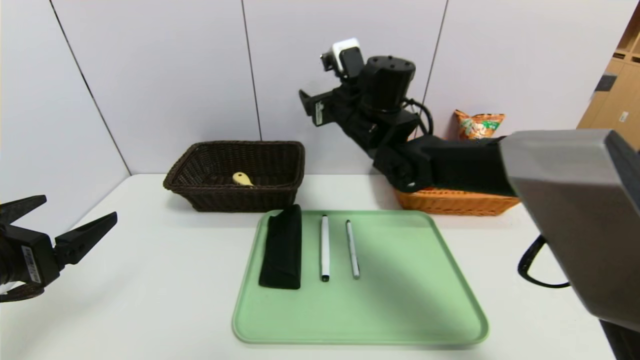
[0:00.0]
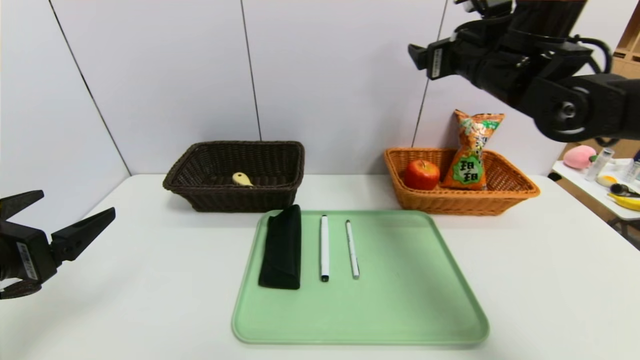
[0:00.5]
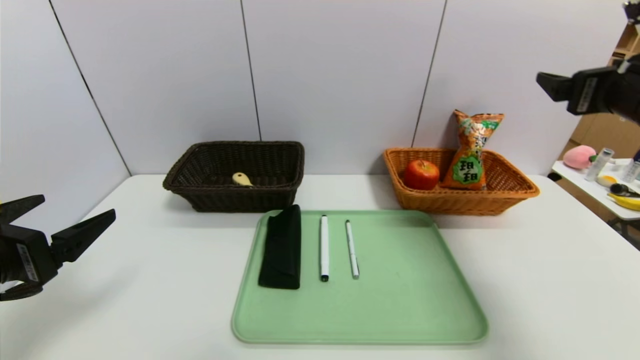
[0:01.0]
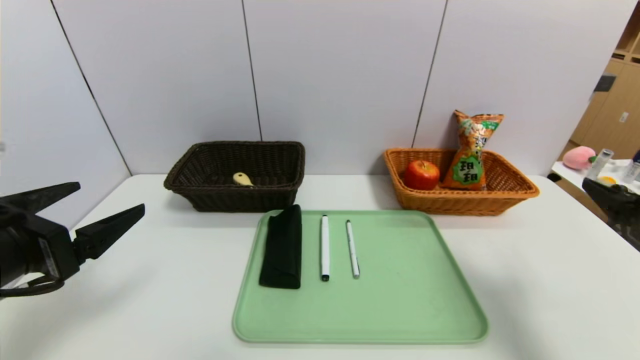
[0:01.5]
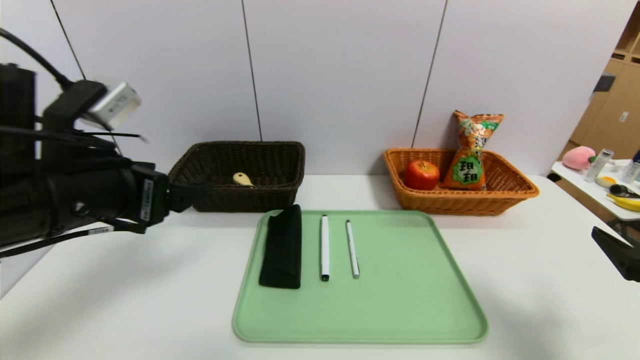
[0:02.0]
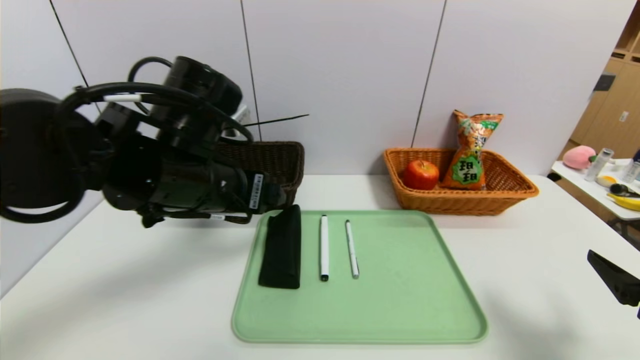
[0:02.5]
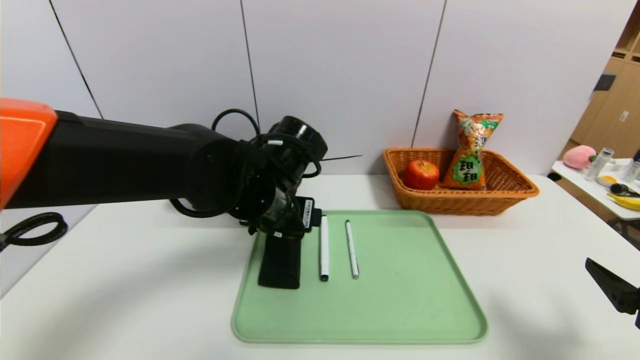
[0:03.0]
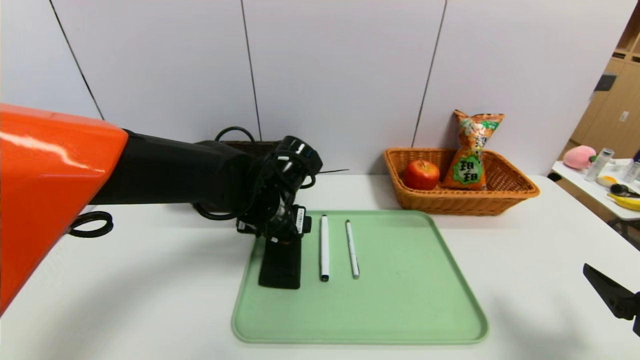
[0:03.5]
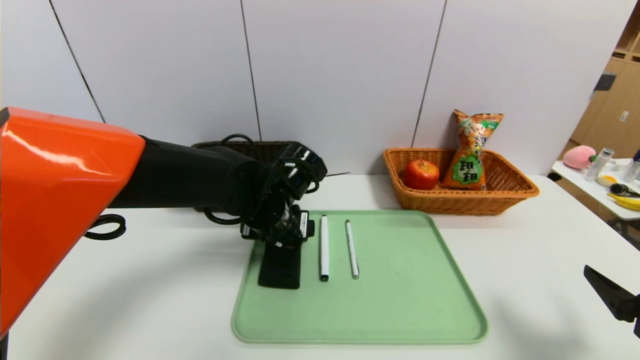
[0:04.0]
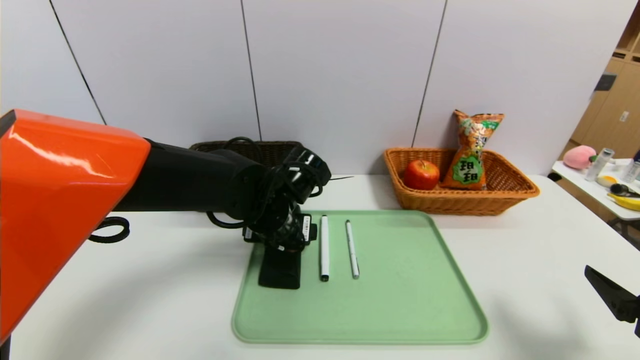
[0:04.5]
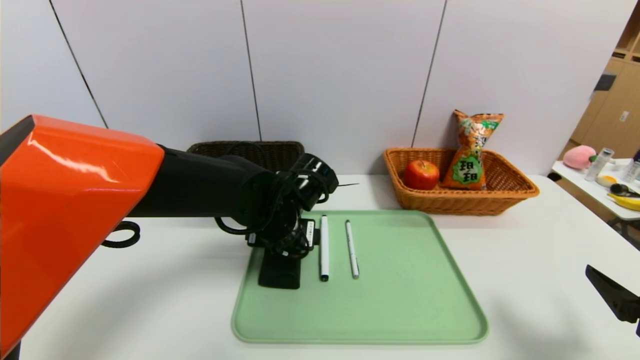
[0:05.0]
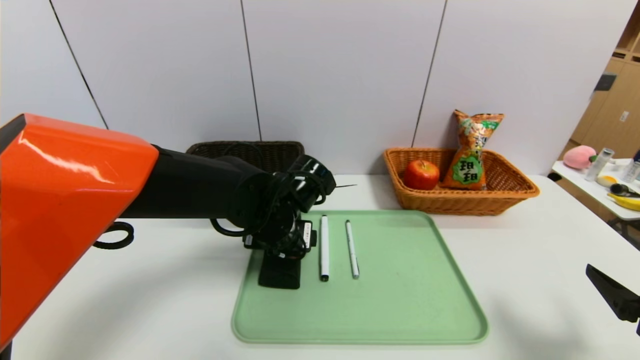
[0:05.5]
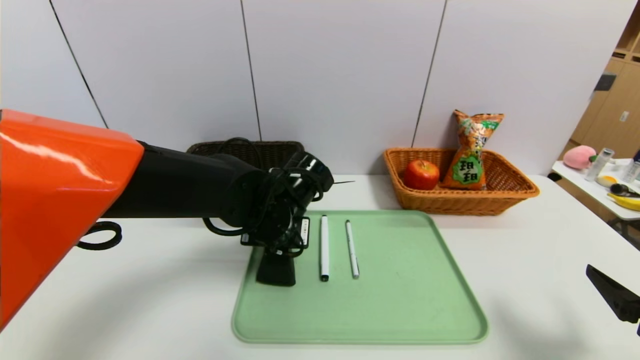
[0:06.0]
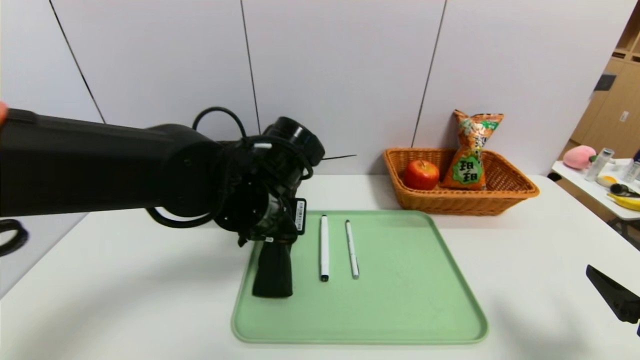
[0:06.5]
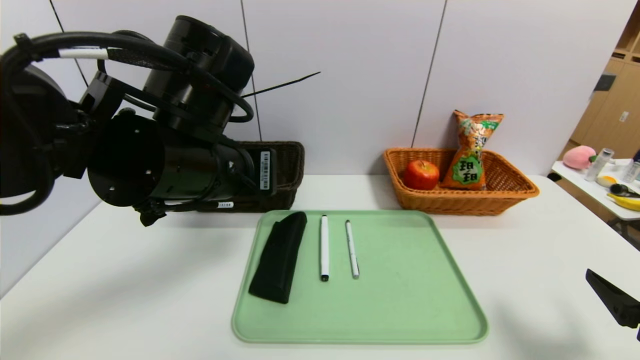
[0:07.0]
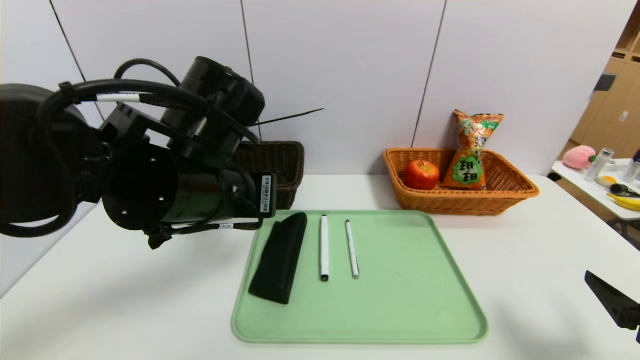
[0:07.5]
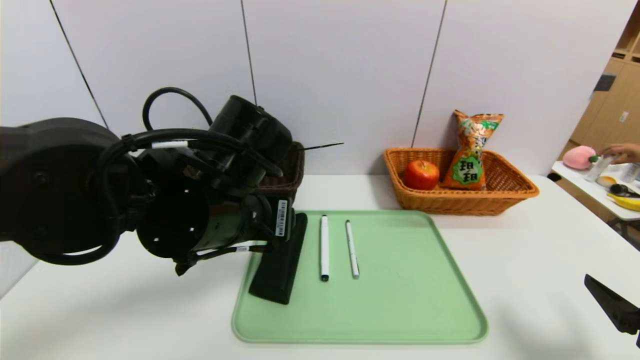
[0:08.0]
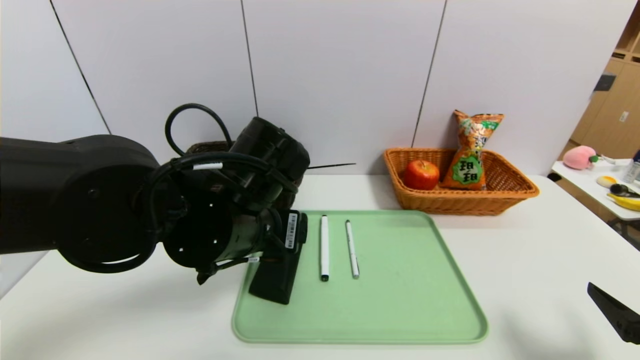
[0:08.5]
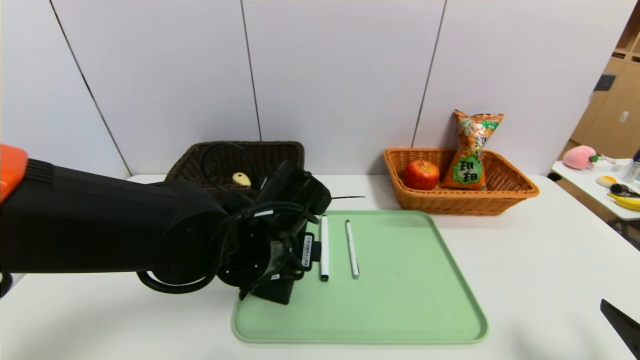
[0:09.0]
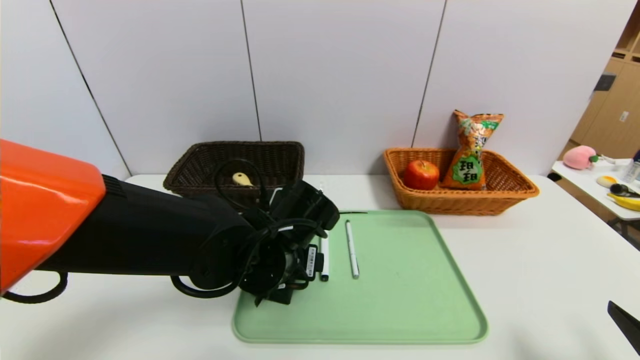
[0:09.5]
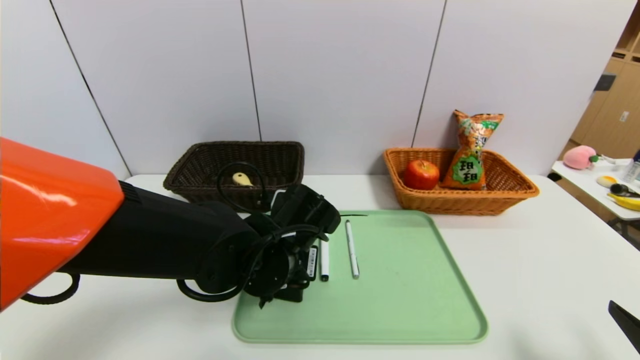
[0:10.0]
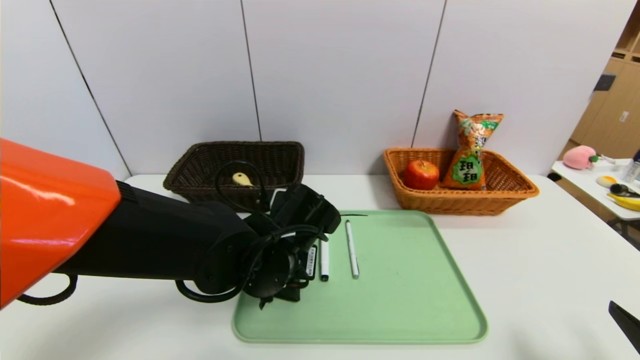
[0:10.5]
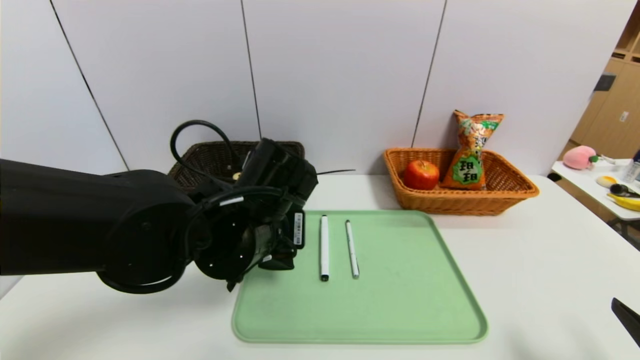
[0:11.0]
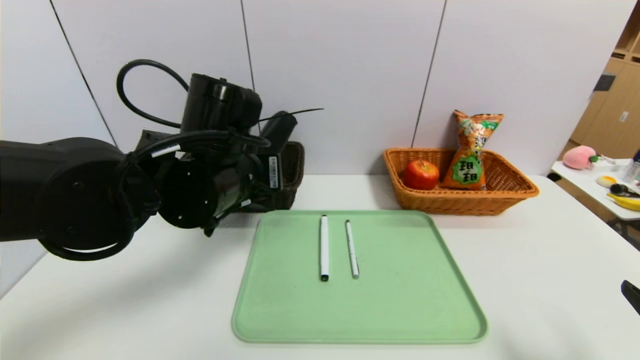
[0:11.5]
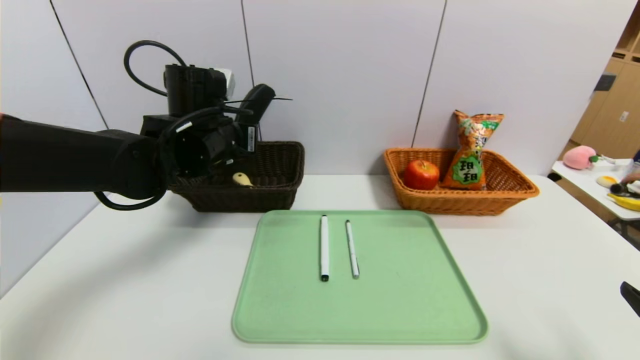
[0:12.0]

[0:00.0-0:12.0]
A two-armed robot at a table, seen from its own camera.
Task of the whole recording: place the food in the right basket with the right gripper, and place the non food items in the left basket with the left gripper.
0:00.0 to 0:02.0: The right gripper is displaced backward and to the right by some 40 cm; the left gripper goes roughly 10 cm to the right and forward.
0:02.0 to 0:04.0: The left gripper moves to the right, forward and downward, roughly 25 cm.
0:04.0 to 0:06.0: The left gripper closes its fingers.
0:06.0 to 0:08.0: The left gripper moves upward and backward, approximately 10 cm, and opens its fingers.
0:08.0 to 0:10.0: The left gripper travels downward by approximately 10 cm.
0:10.0 to 0:12.0: The left gripper shifts approximately 20 cm upward, to the left and forward.

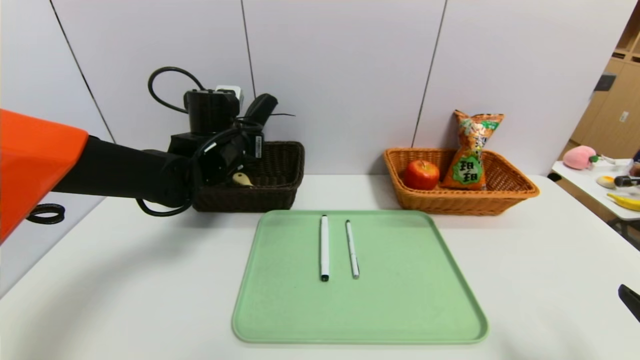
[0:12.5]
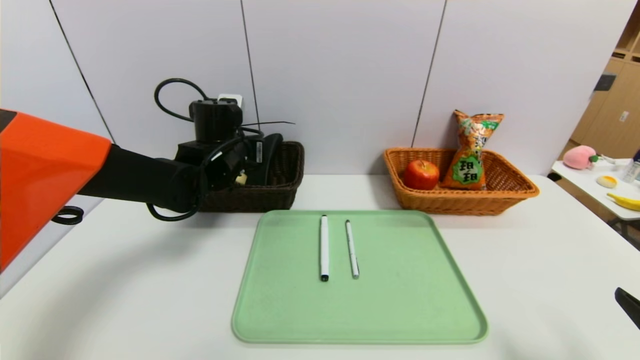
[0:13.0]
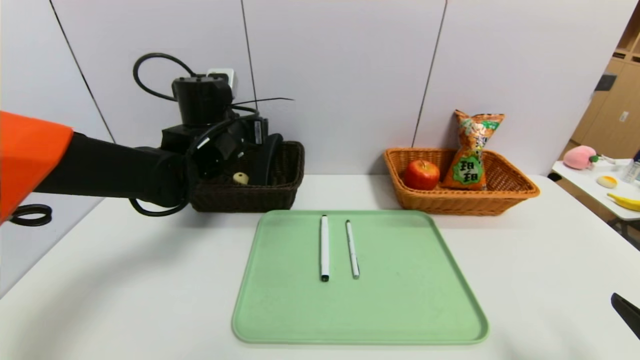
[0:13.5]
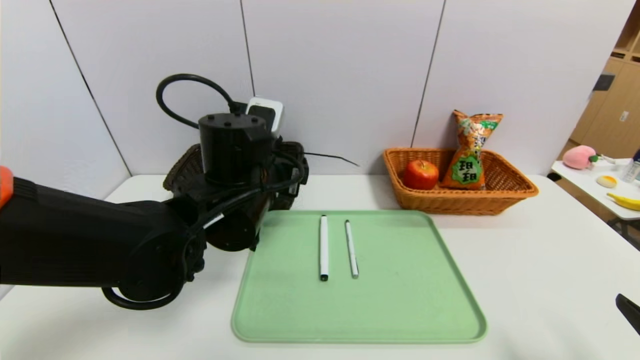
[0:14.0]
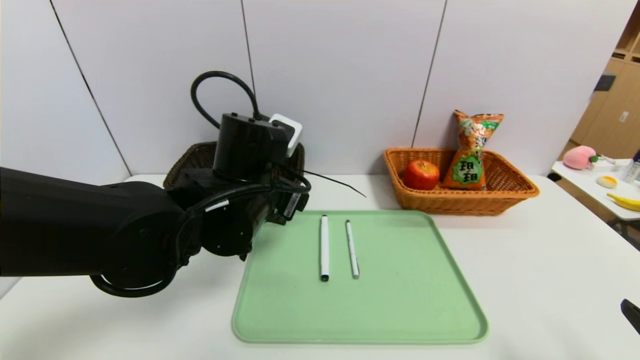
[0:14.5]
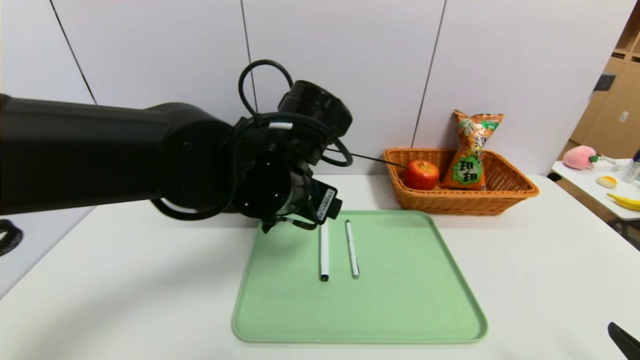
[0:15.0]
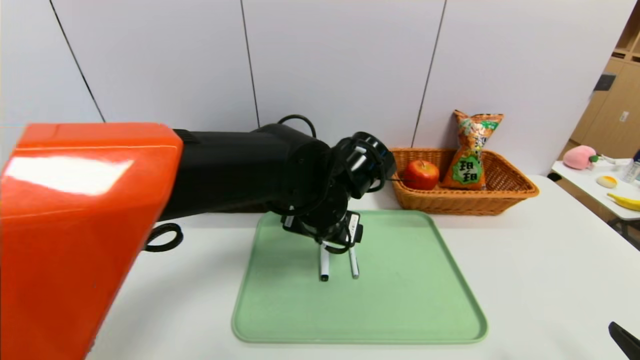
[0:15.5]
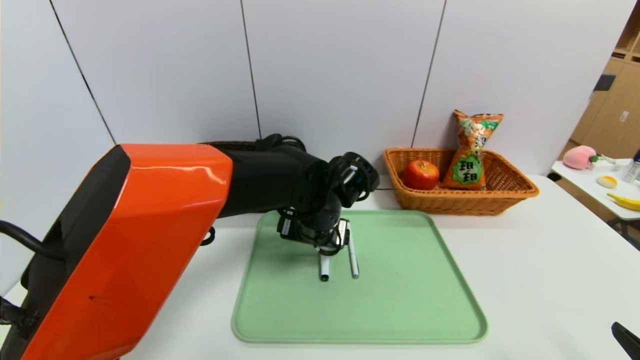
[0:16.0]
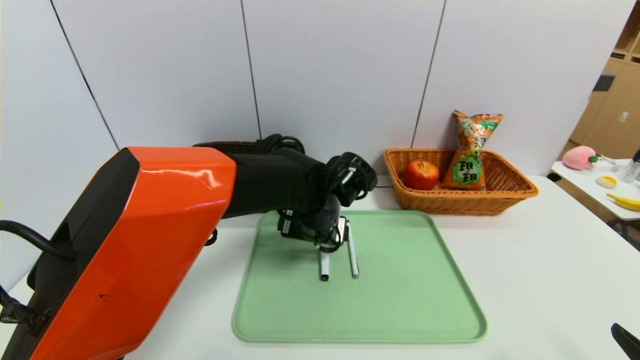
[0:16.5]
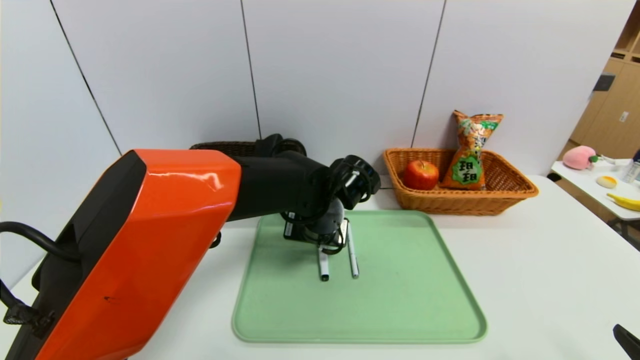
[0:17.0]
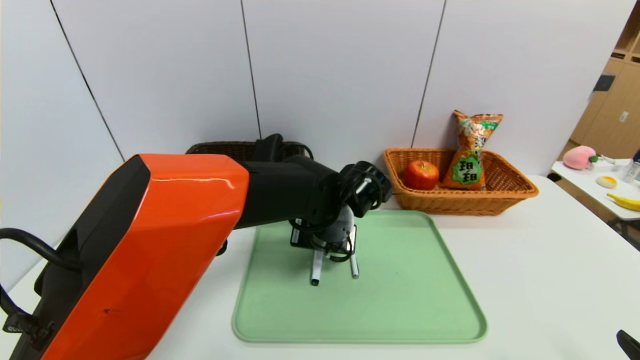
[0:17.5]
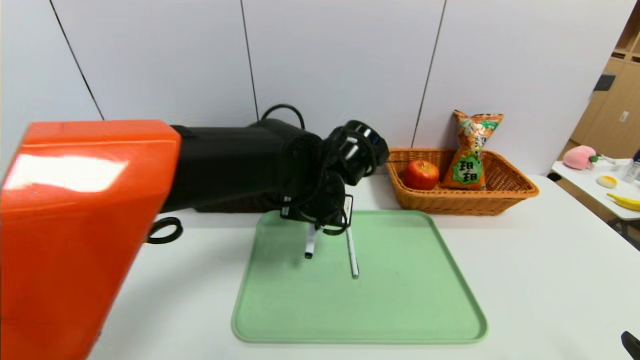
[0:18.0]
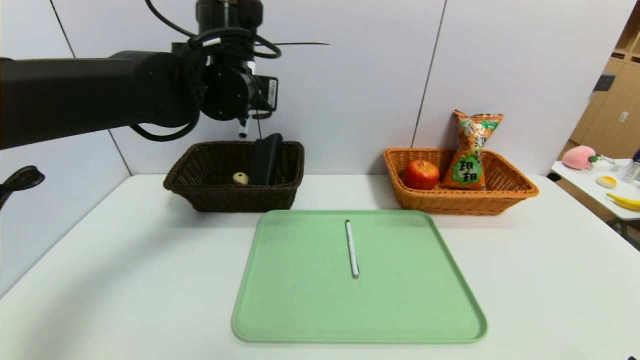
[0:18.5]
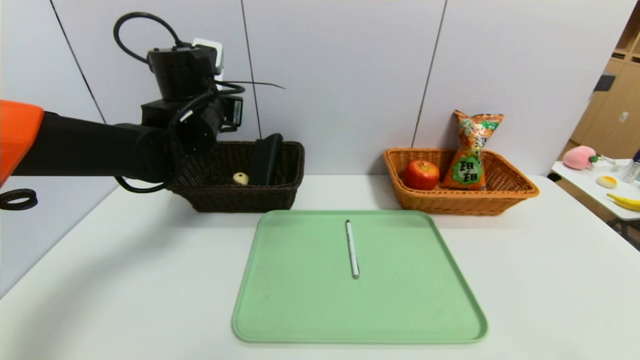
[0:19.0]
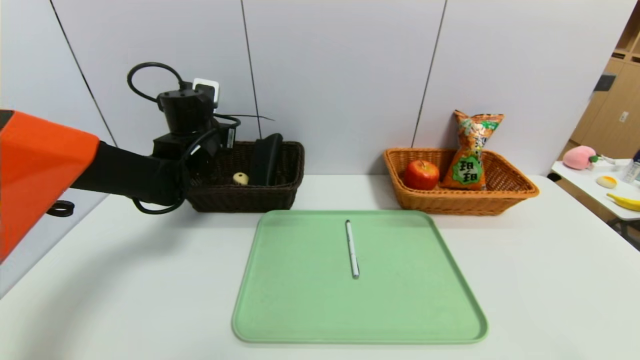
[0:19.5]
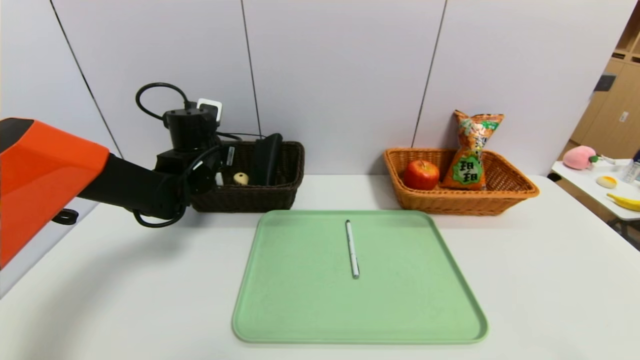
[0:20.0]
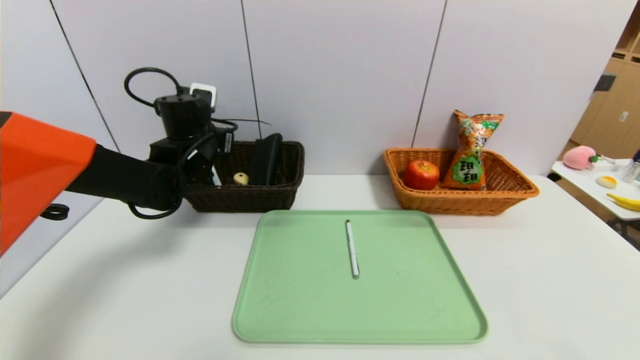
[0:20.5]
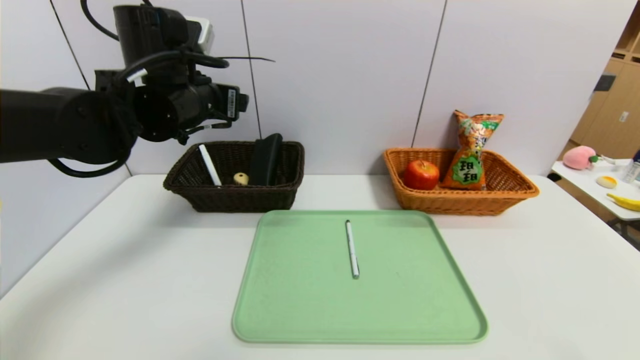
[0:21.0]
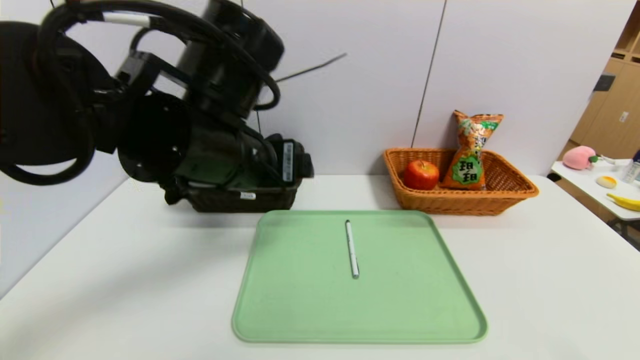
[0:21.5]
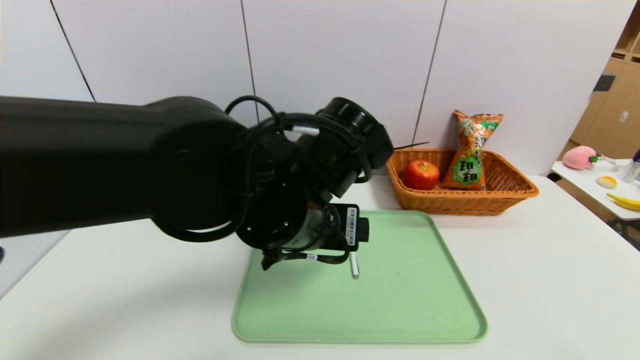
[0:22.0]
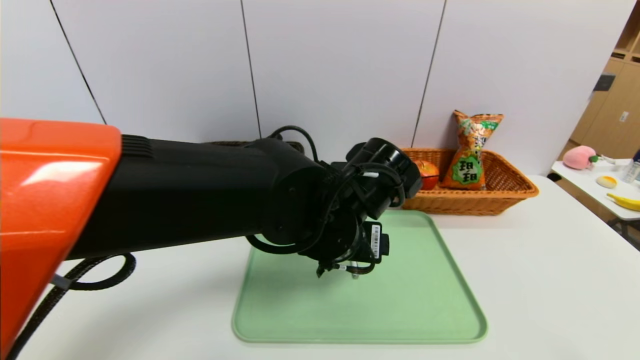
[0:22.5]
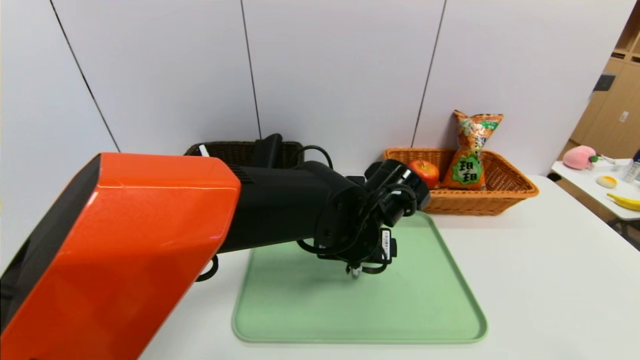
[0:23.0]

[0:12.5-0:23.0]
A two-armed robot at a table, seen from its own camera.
Task of the whole recording: place the food in the right basket with the right gripper, and place the non food items in the left basket with the left gripper.
Step, 0:13.5 to 0:20.0: Grasp the black marker and put it in the left basket.
0:12.5 to 0:14.5: The left gripper moves backward and to the right, about 15 cm, and opens its fingers.
0:14.5 to 0:16.5: The left gripper travels to the right, downward and forward by approximately 15 cm.
0:16.5 to 0:19.0: The left gripper is displaced to the left and upward by roughly 20 cm, and closes up.
0:19.0 to 0:21.0: The left gripper shifts about 5 cm backward, and opens up.
0:21.0 to 0:23.0: The left gripper is displaced to the right and downward by some 25 cm.
